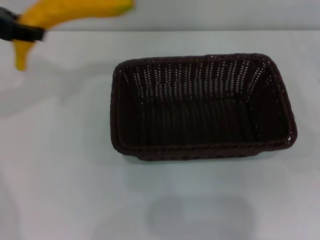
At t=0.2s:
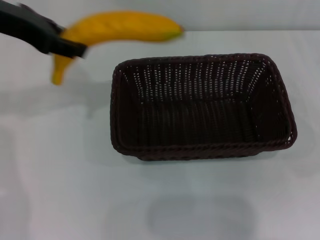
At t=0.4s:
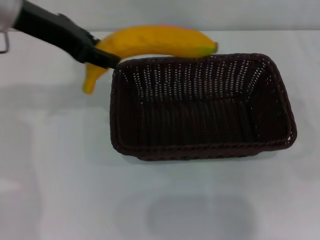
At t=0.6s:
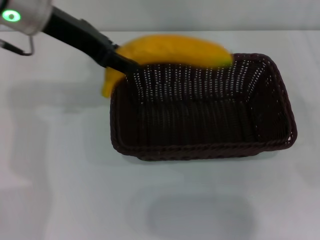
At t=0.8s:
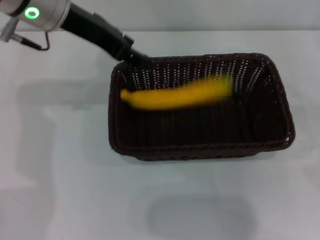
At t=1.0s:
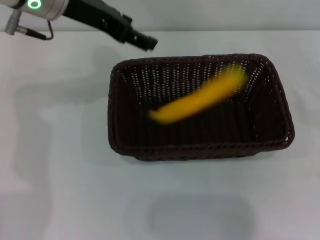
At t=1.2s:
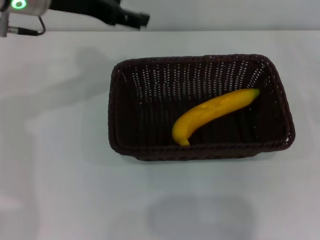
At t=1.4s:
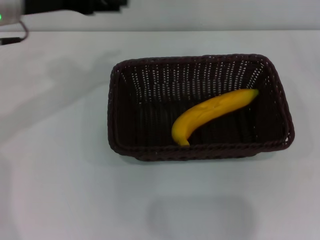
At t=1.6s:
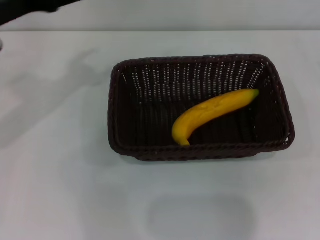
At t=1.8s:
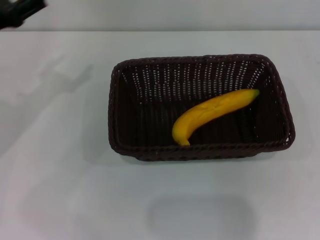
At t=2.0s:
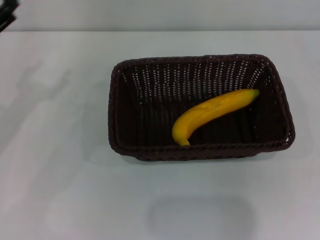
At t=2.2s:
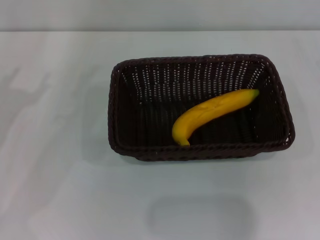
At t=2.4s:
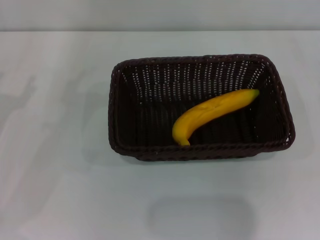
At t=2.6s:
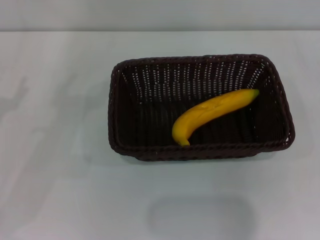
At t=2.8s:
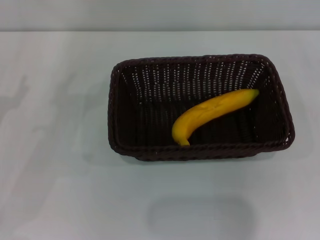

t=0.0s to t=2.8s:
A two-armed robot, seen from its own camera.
Step, t=0.0s to t=1.0s: Place the banana into the dark basket with the left gripper.
t=0.0s to t=1.4s: The left gripper moves to the right, some 5 cm, and opens. Meanwhile the right gripper travels to the right and backward by approximately 10 cm.
t=1.4s to t=2.8s: The left gripper travels downward, to the left and backward by some 20 cm.
